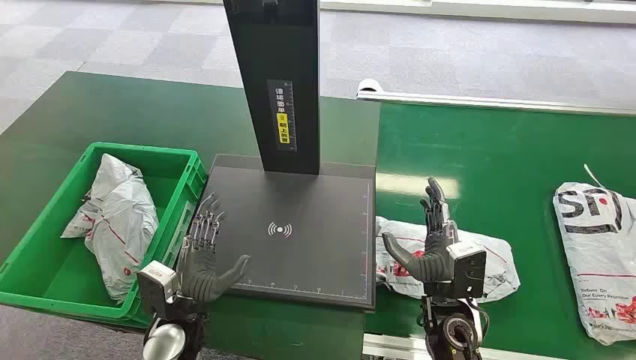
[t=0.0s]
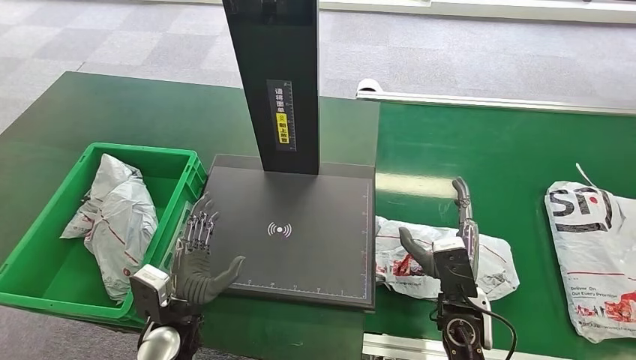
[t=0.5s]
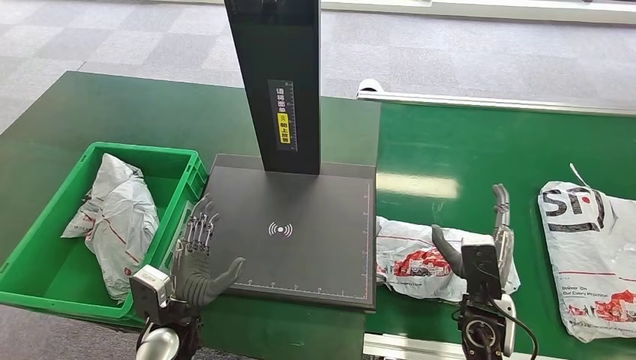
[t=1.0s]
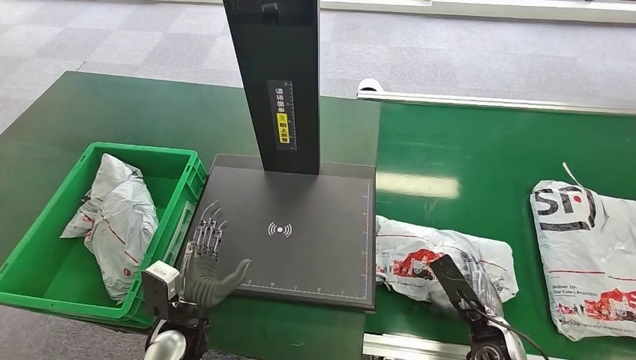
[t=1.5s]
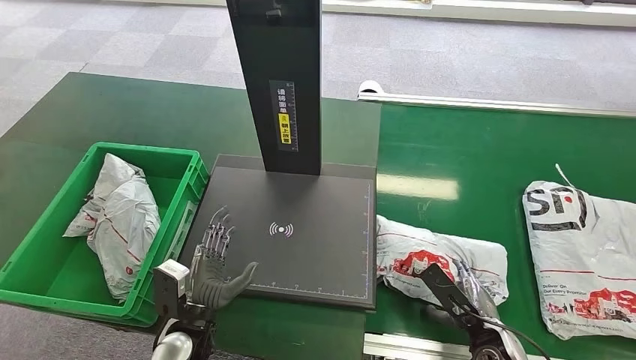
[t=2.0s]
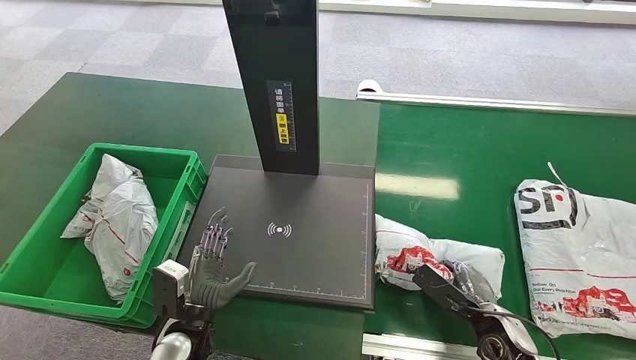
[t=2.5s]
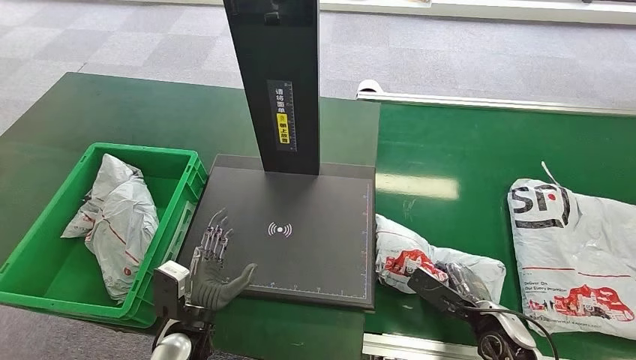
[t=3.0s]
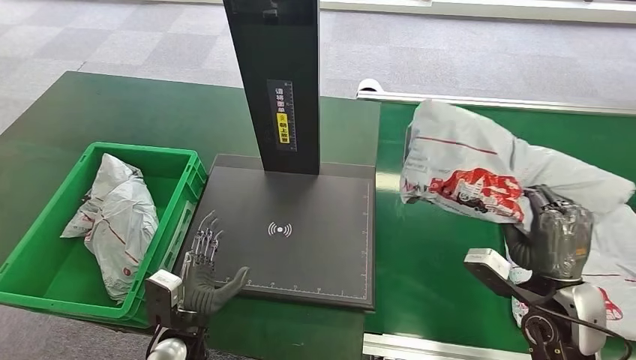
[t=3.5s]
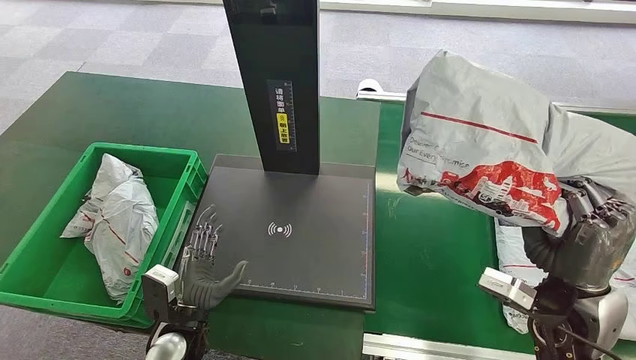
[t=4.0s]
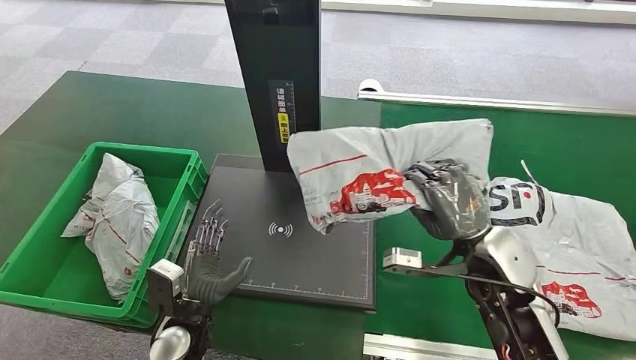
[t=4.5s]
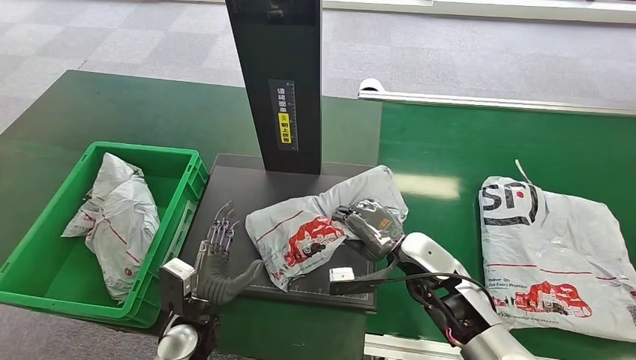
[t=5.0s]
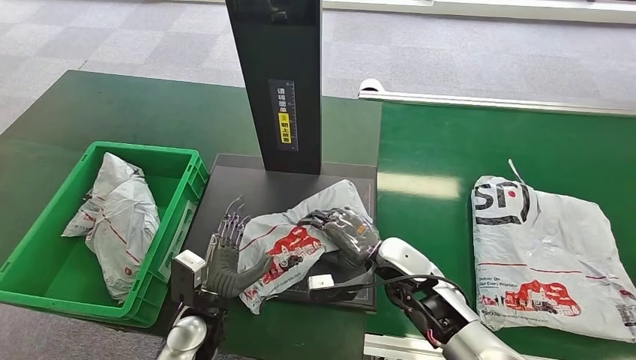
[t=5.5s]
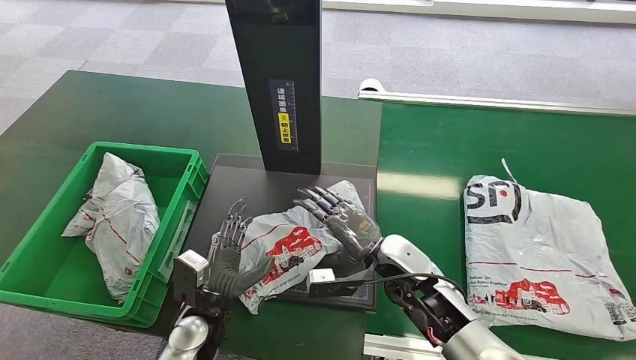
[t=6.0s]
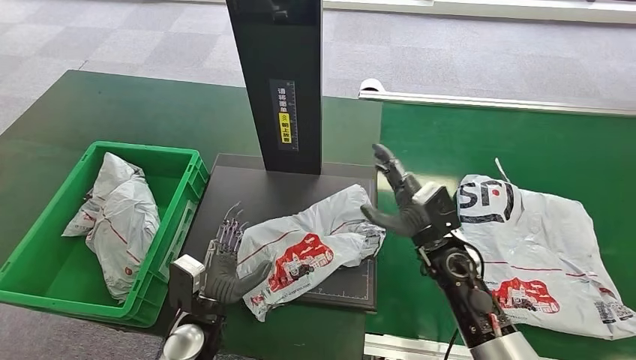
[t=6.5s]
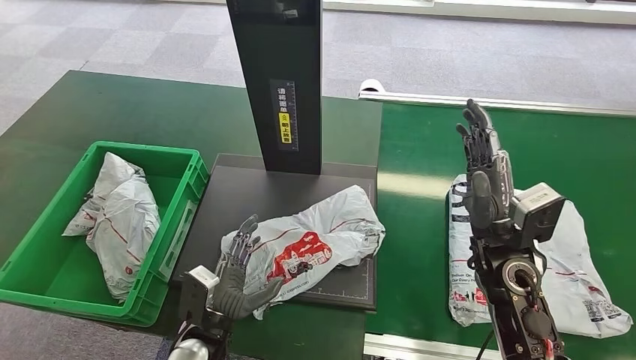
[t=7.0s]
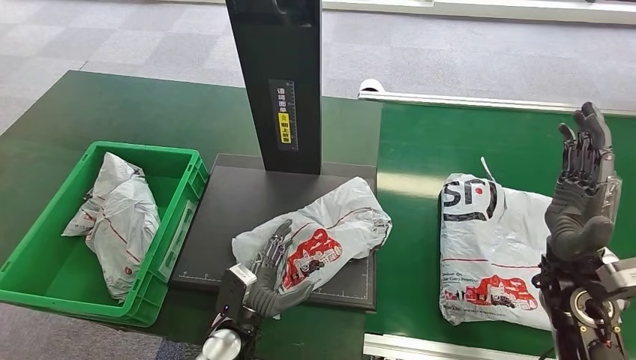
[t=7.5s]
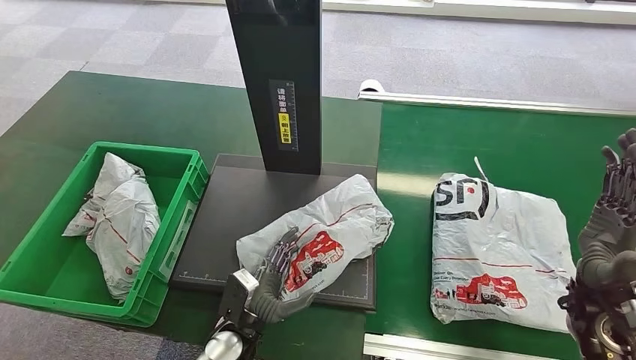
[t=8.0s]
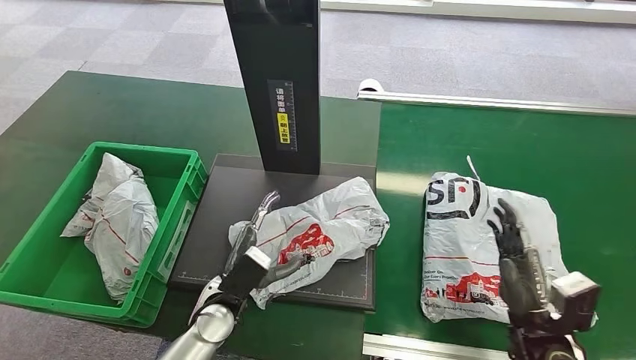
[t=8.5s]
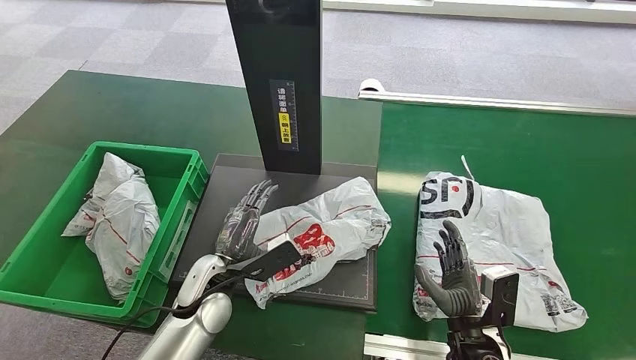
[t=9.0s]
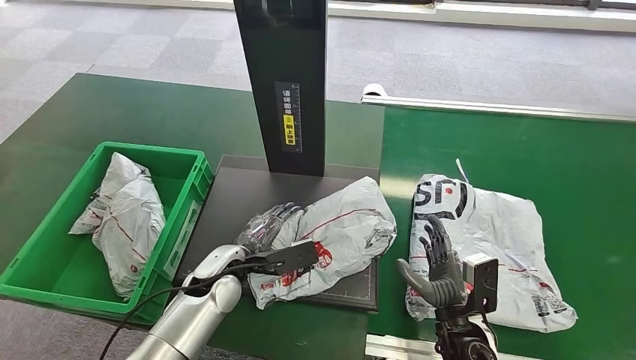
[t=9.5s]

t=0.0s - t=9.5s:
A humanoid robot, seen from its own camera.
Task of the whole recording: Weigh the package on the weighing device and place it in the left basket.
Step, t=0.0s - t=3.5s: Pick up the package from the conveyor belt.
Step, t=4.0s - t=6.5s: Place the package onto the inbound machine.

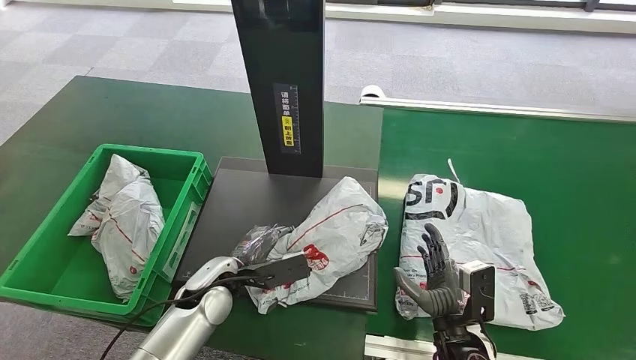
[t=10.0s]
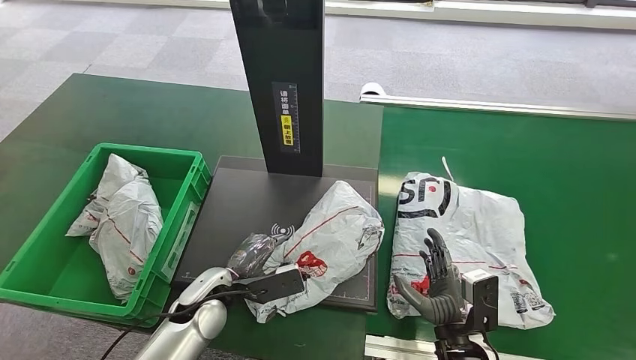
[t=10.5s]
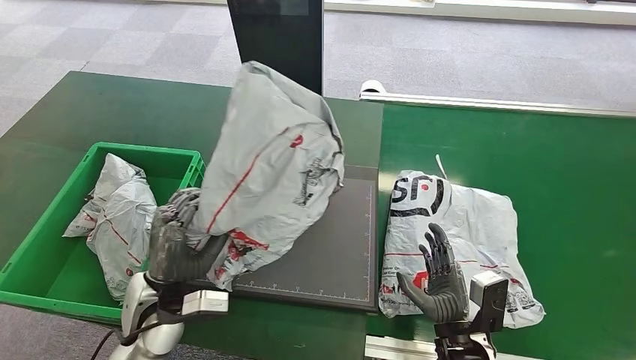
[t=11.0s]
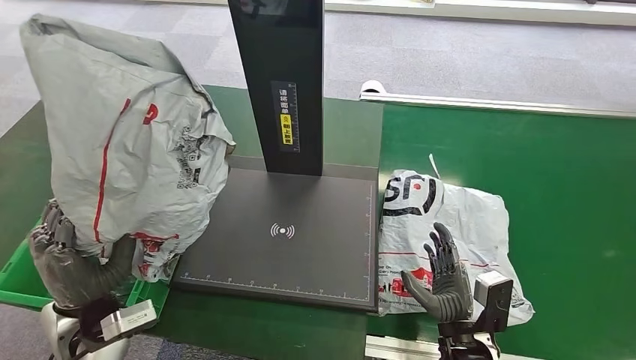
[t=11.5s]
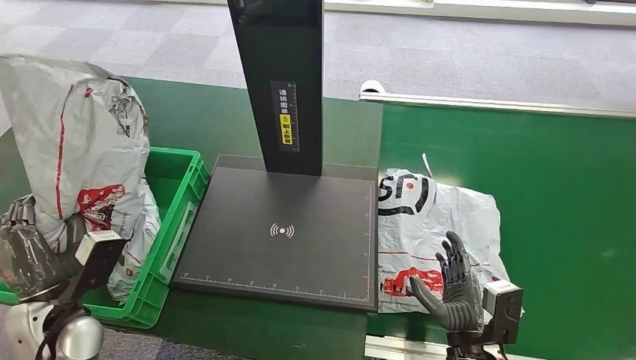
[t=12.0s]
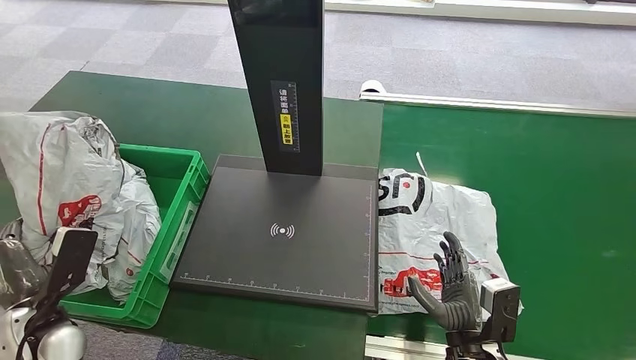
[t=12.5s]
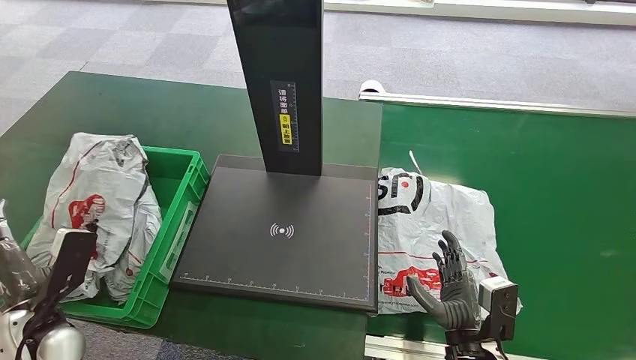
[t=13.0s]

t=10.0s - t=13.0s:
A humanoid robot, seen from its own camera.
Task of the whole recording: Weigh the package on the weighing device and place it in the left basket.
Step, t=12.0s - t=13.0s: Place the package into the parcel locker.
